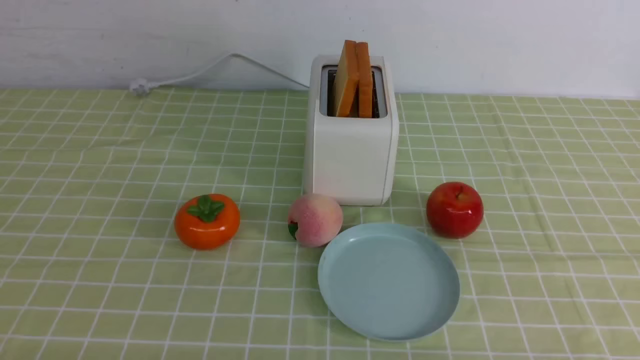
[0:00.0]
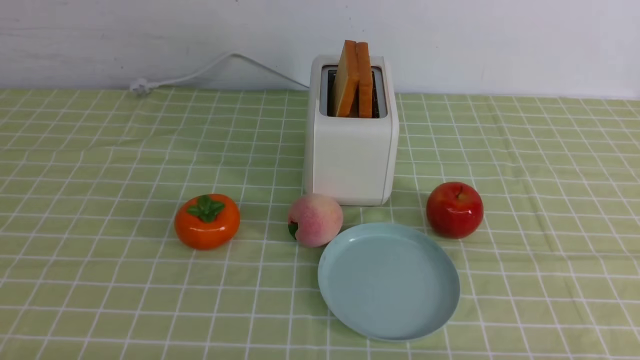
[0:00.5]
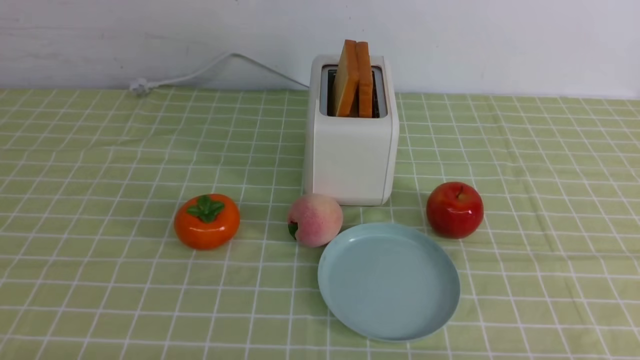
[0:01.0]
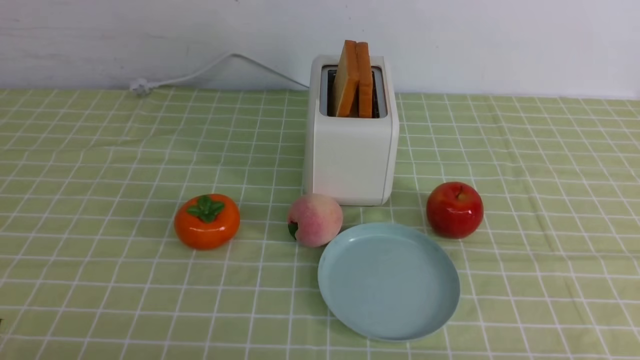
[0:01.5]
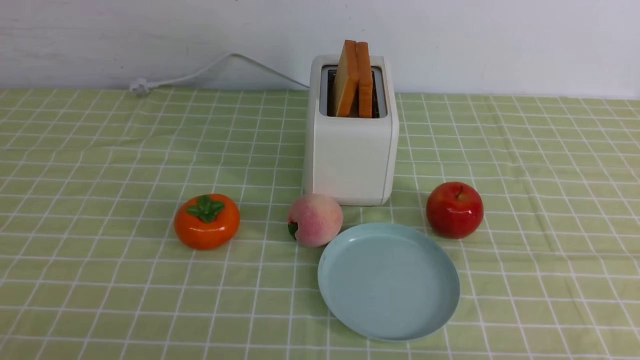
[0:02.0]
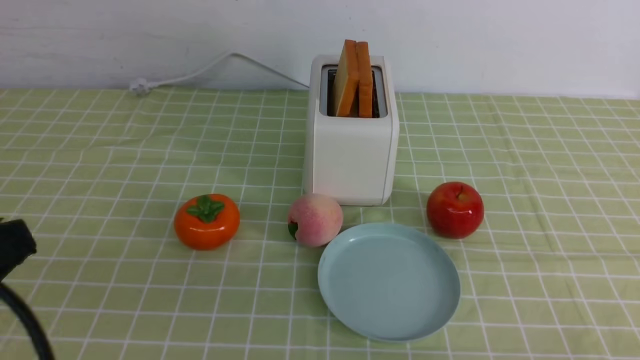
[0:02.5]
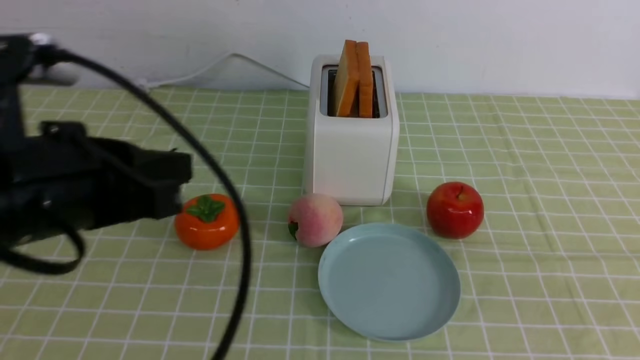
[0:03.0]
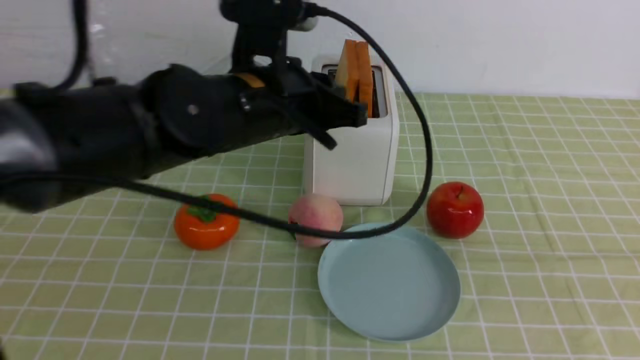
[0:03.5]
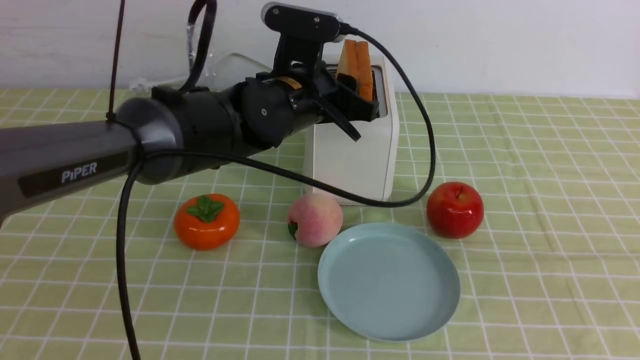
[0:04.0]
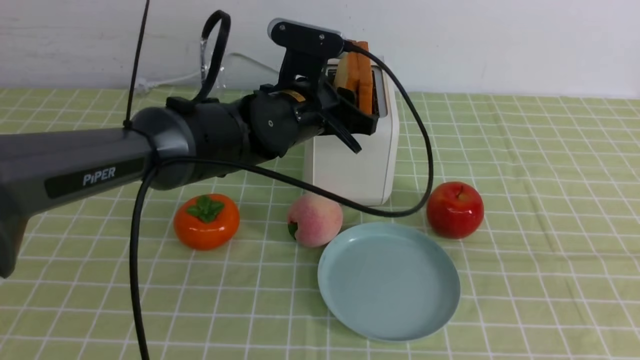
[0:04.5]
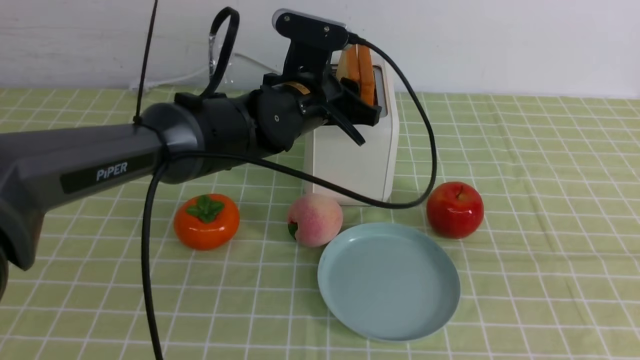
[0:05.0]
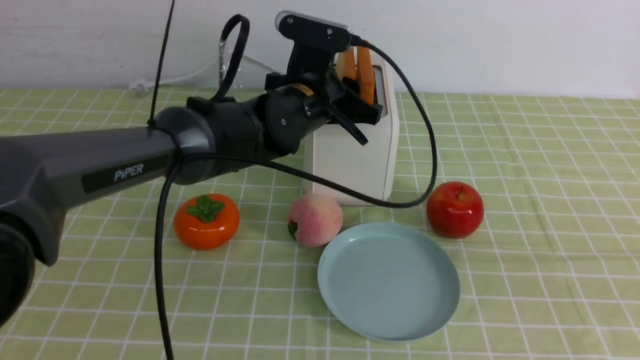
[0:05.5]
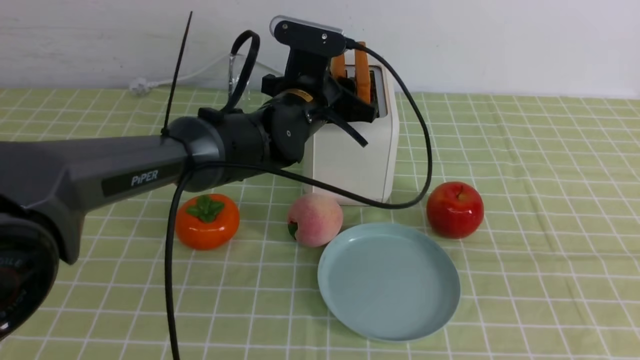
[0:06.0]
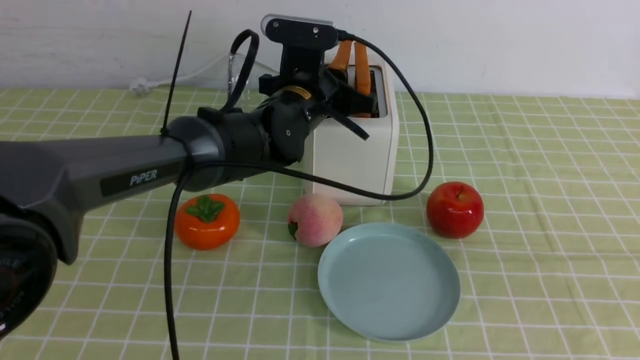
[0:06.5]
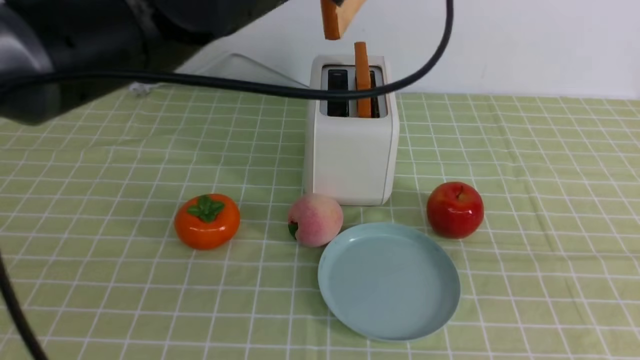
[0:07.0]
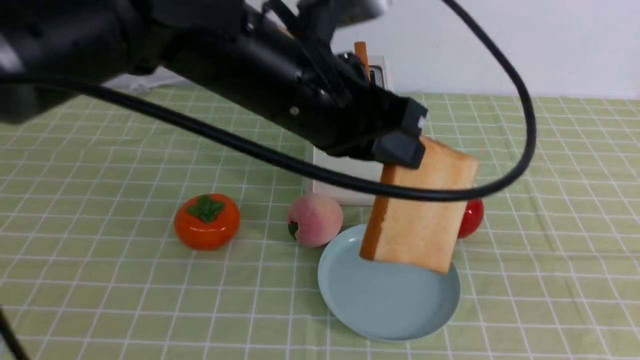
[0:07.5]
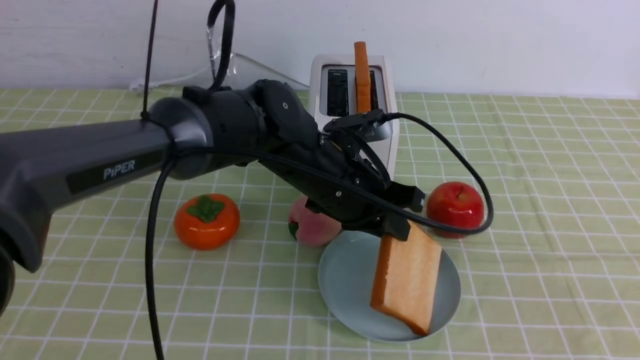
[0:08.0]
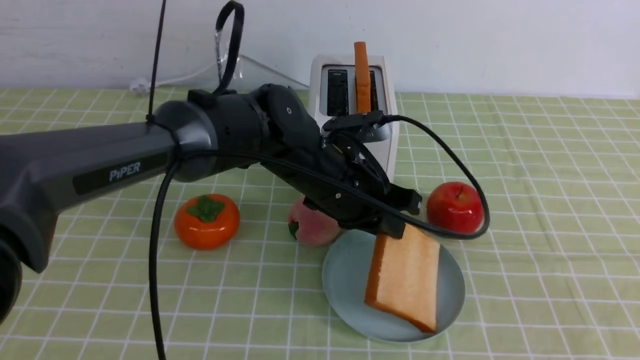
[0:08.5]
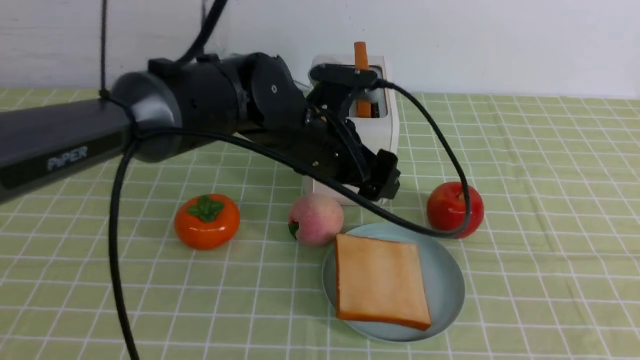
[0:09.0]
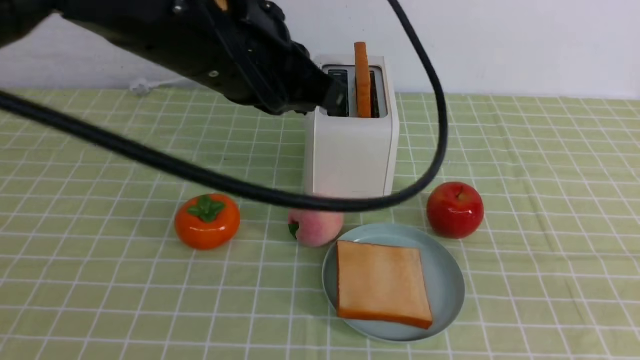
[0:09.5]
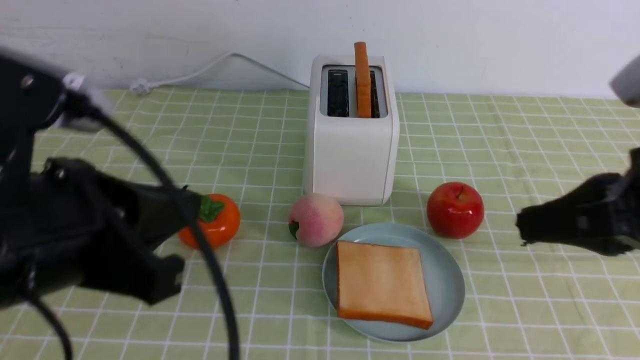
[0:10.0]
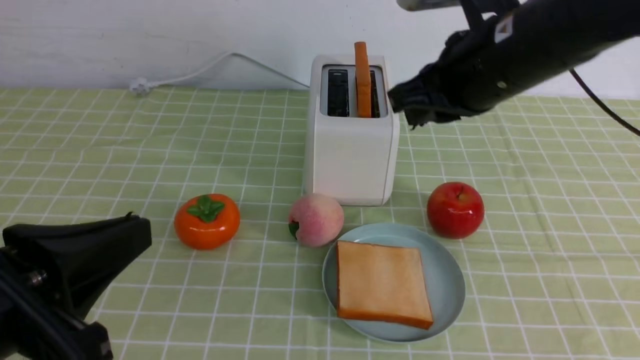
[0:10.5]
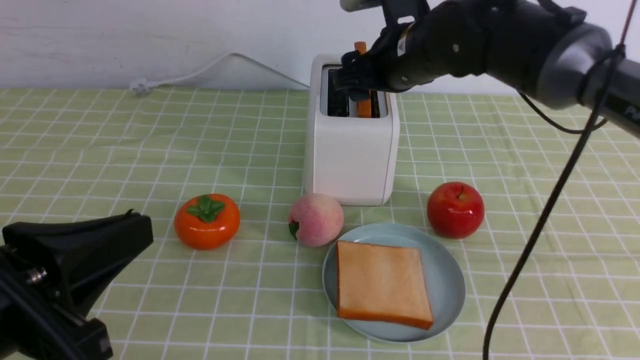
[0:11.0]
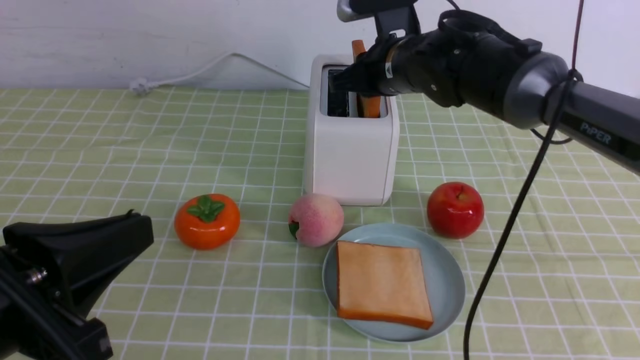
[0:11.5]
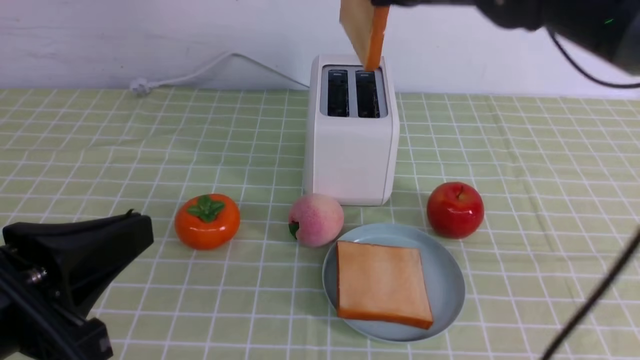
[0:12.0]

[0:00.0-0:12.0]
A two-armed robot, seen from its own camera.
Task of the whole recording: take toasted bread from bread machine on green coffee tablecloth place on plate.
Step, 0:00.0 to 0:06.5: use the left arm to take out a slice of bread.
Step, 0:07.0 to 0:09.0: use the left arm to put a slice of bread into the empty plate.
Step, 0:09.5 to 0:11.5: use the right arm to take out a slice of bread.
0:02.0 to 0:04.0: The right gripper travels upward by approximately 20 cm, and closes. Meanwhile the left gripper goes roughly 40 cm forward and to the right, and opens its fingers.
0:04.0 to 0:06.0: There are only small adjustments of the grippers.
0:06.0 to 0:08.0: Both grippers travel together backward, some 5 cm. The left gripper travels upward and back again, roughly 15 cm each way.
0:08.0 to 0:10.0: The left gripper goes some 30 cm backward, to the left and upward, and opens and closes again. The right gripper heads forward, covering approximately 20 cm.
0:10.0 to 0:12.0: The left gripper ends up about 5 cm from where it was. Meanwhile the right gripper goes roughly 20 cm forward and to the left, and opens, then closes again.

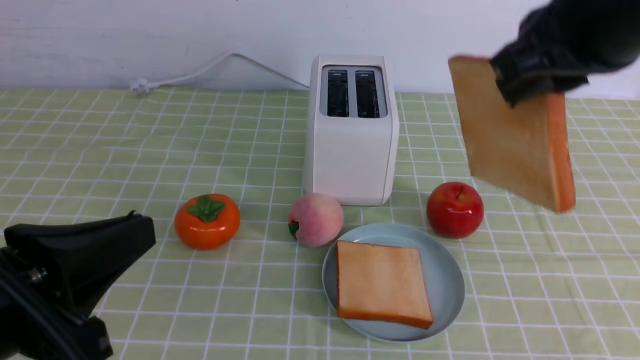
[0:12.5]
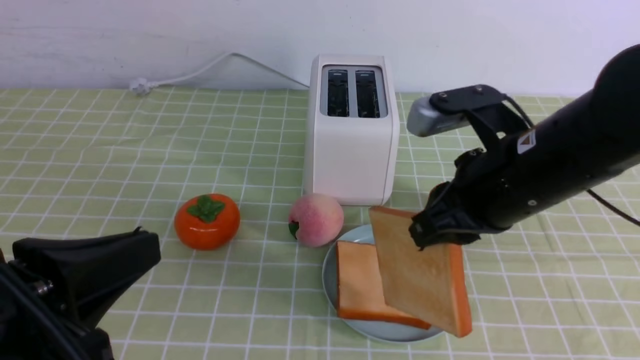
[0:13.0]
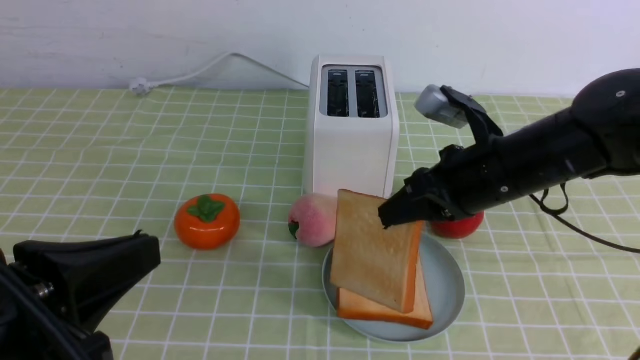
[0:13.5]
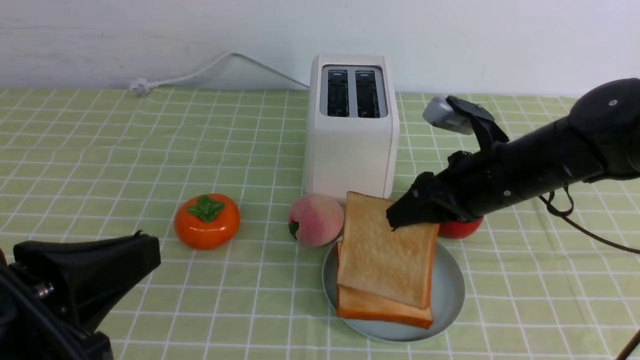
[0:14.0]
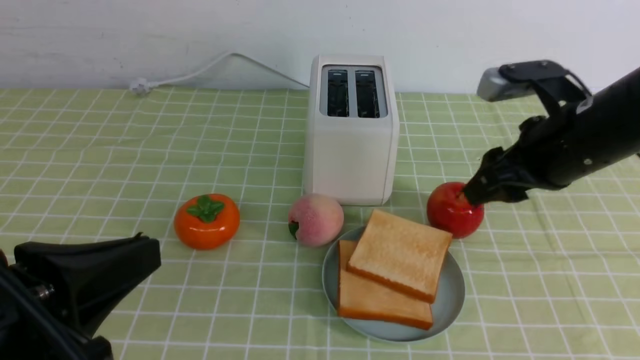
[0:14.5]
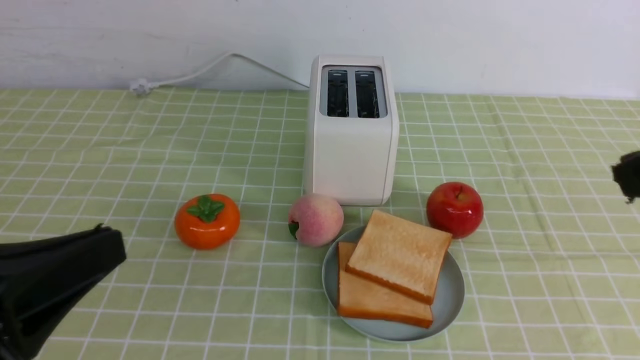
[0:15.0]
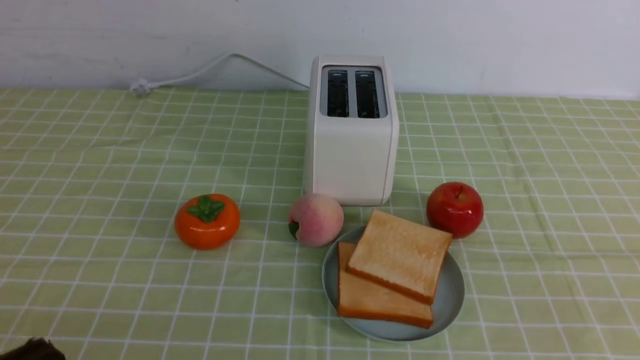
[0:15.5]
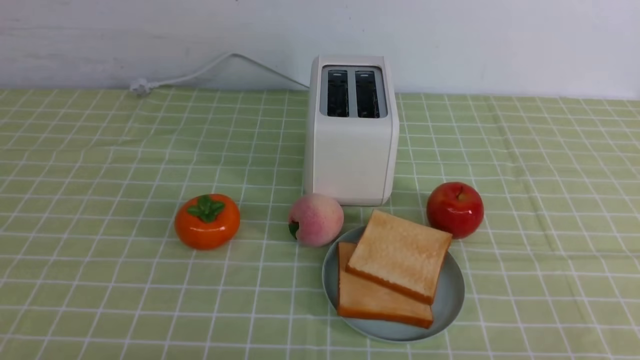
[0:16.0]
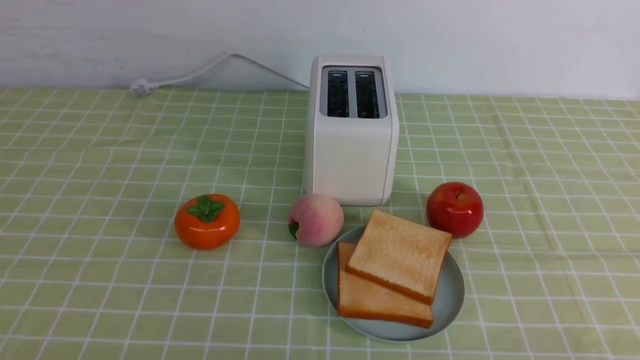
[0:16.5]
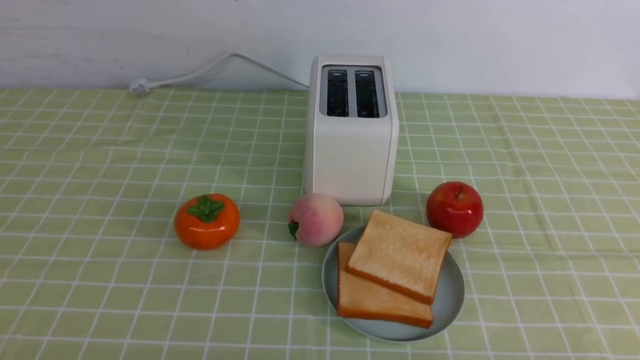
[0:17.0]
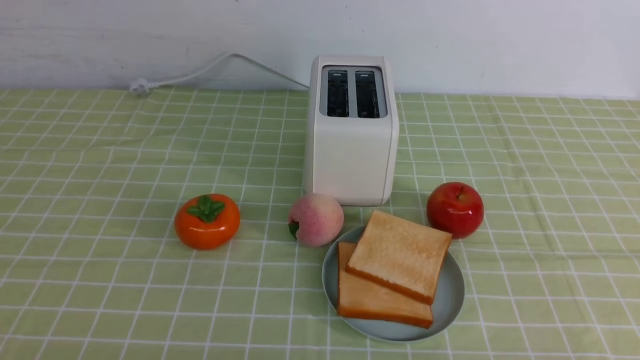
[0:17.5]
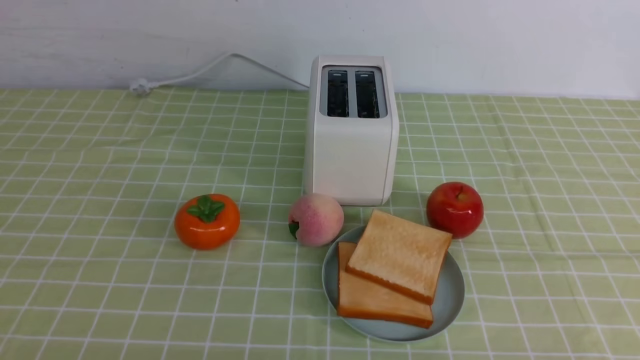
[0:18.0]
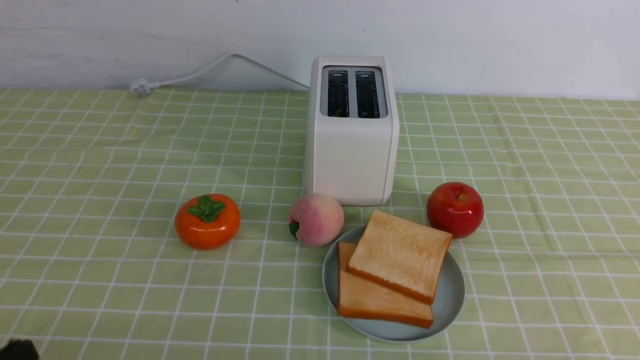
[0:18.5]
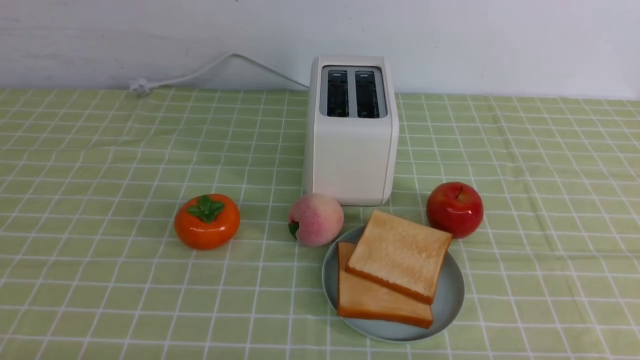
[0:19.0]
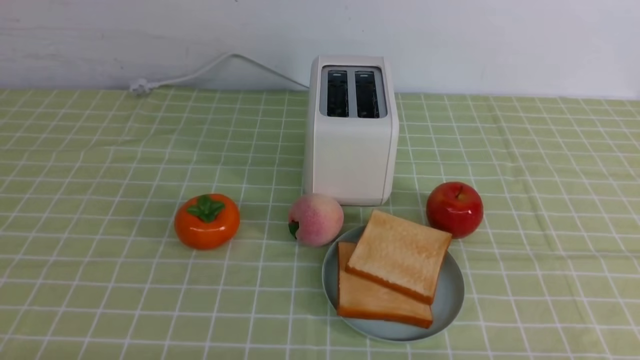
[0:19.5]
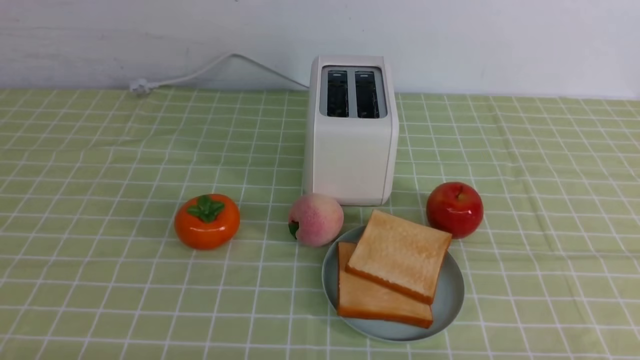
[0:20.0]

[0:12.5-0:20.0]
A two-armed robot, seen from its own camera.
Task of the whole recording: take toasted bread from bread machine on green coffee tablecloth place on plate.
Step, 0:12.5 to 0:14.5: use the right arm to put a slice of bread into the plate.
0:12.5 to 0:14.5: The right gripper is displaced downward, forward and to the right by approximately 15 cm, and opens.
0:14.5 to 0:16.5: The right gripper shifts some 30 cm backward and downward, and closes up, while the left gripper heads downward and backward, covering some 15 cm.
